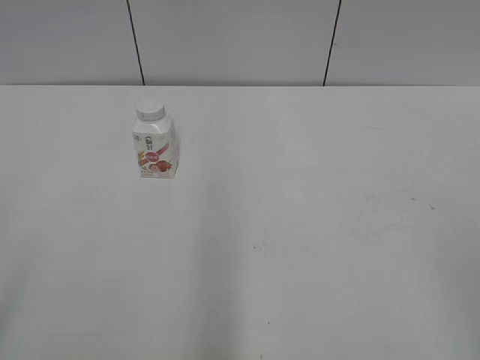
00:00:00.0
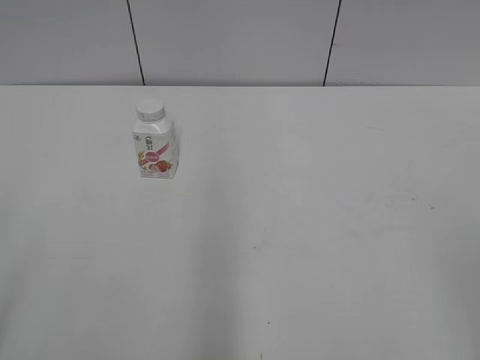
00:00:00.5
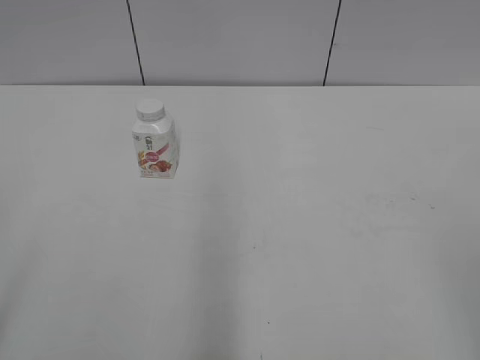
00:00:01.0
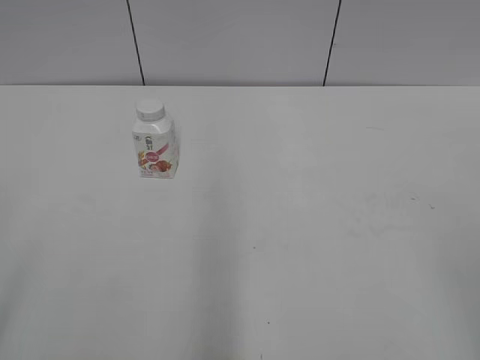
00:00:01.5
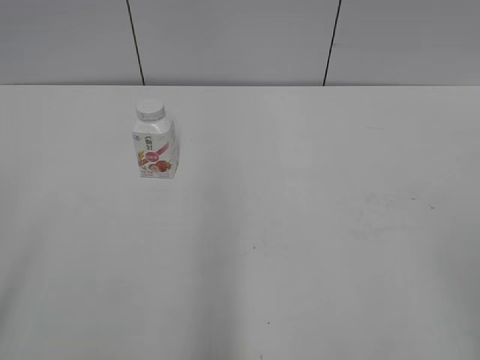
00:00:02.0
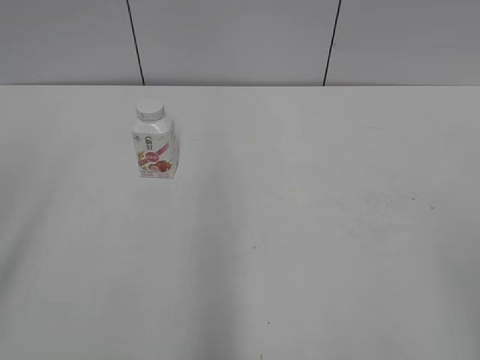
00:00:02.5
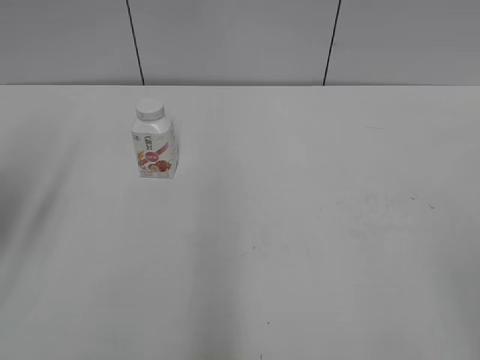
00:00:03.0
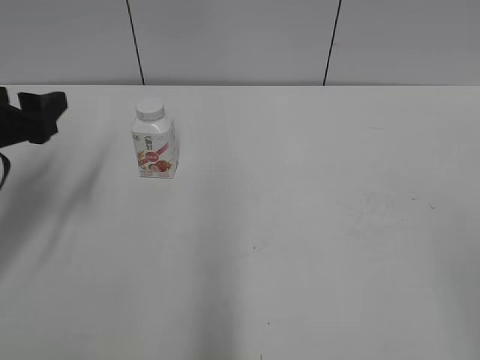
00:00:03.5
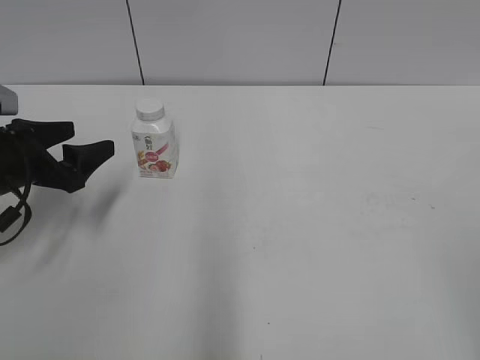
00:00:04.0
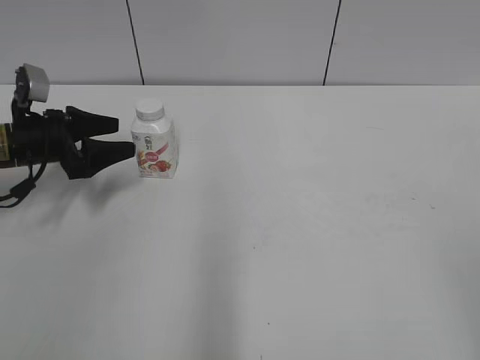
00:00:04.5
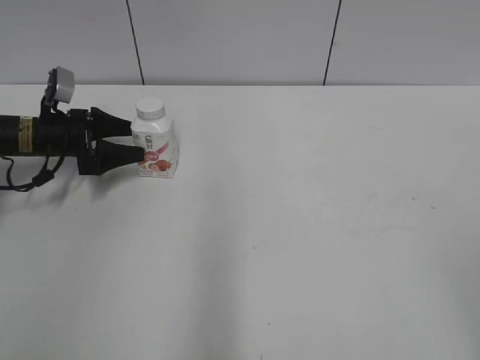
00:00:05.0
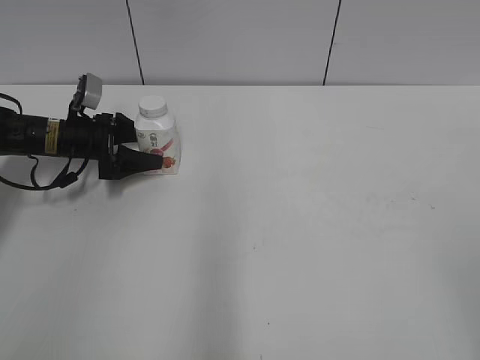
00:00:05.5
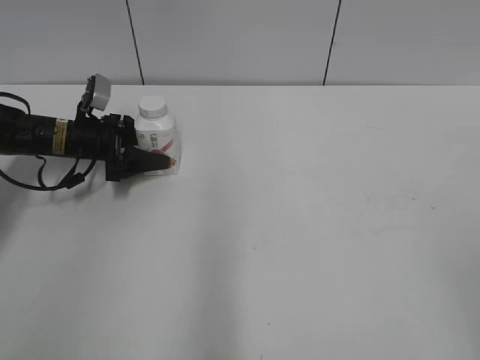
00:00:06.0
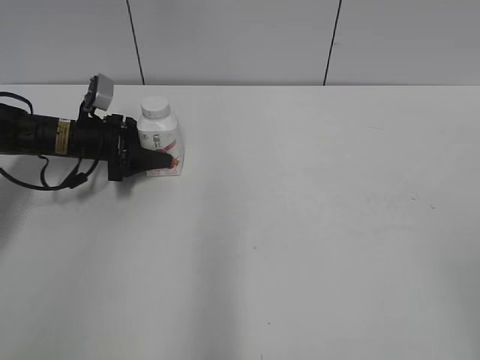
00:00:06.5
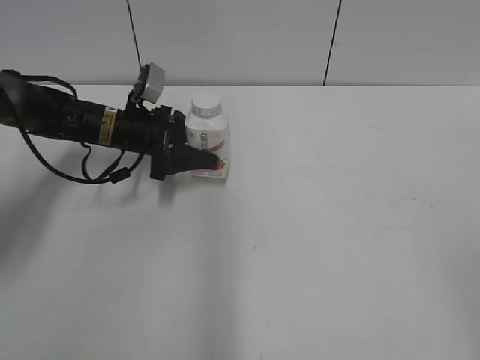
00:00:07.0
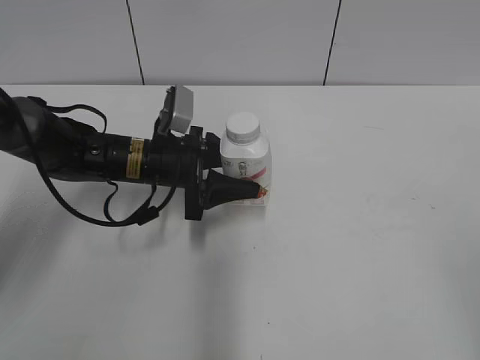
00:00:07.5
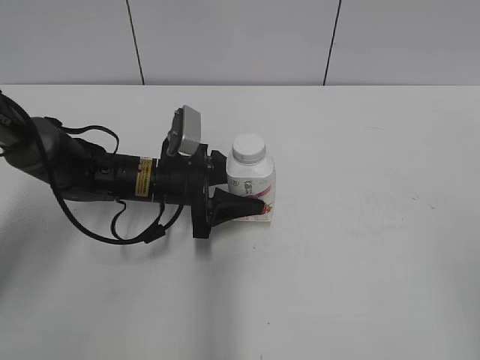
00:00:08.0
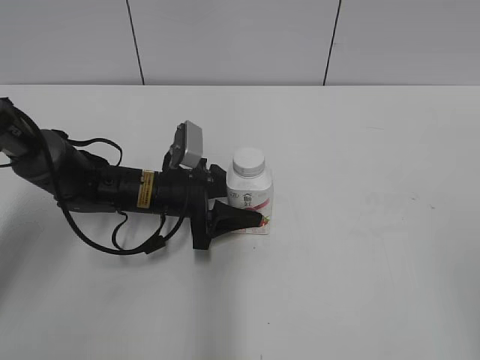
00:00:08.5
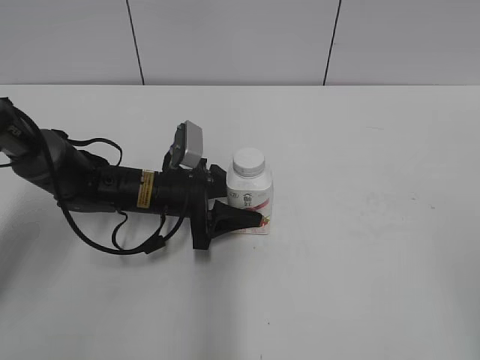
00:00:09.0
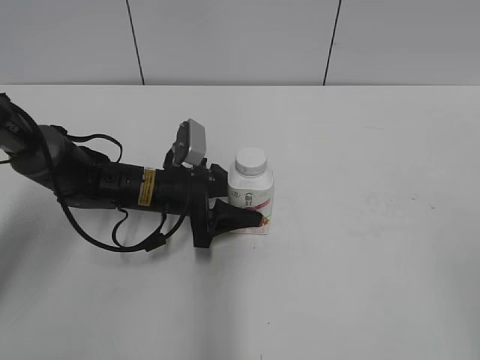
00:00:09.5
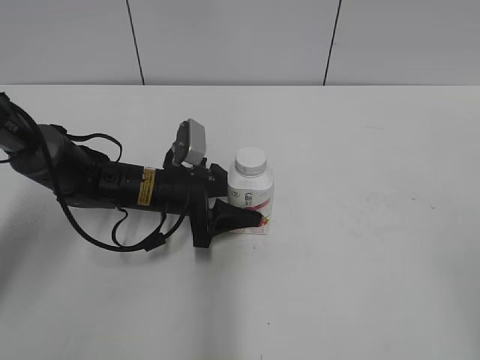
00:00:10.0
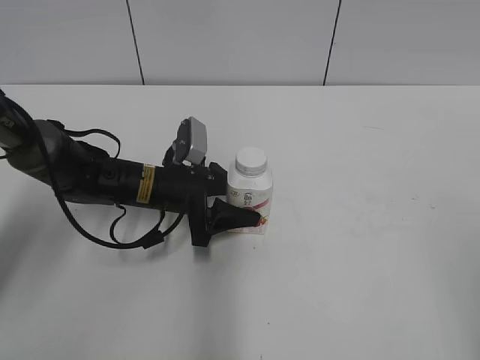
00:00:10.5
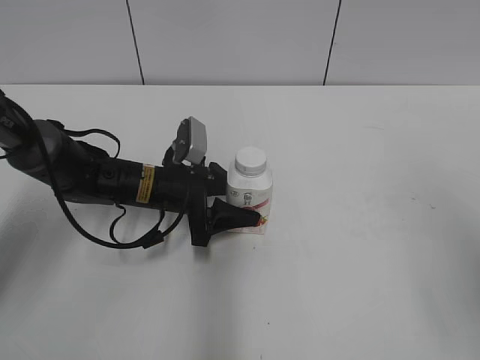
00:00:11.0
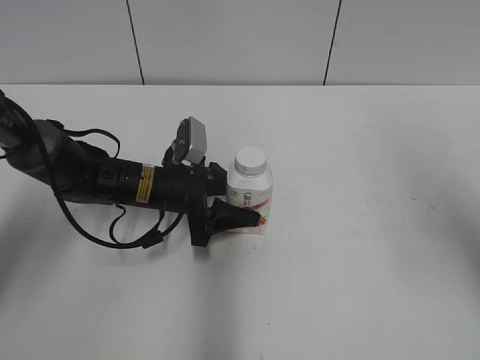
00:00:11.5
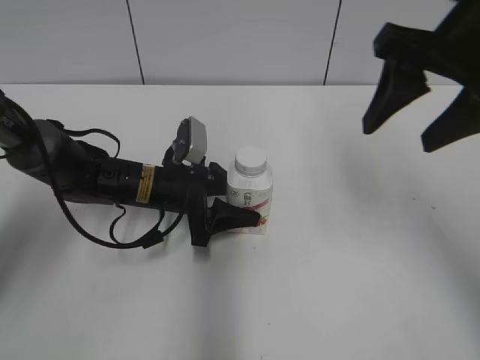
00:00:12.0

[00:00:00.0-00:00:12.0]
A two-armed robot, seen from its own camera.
Step, 00:00:00.0 to 00:00:06.0: Grab the Yili Changqing with the left hand.
Step, 00:00:06.5 to 00:00:08.5: Move the Yili Changqing from left to right.
00:00:02.0 to 00:00:04.0: The left gripper travels forward and downward by about 35 cm.
00:00:04.0 to 00:00:06.0: The left gripper travels forward and downward by some 15 cm, and closes its fingers.
00:00:06.0 to 00:00:08.0: The left gripper heads to the right and backward, covering some 15 cm.
00:00:08.0 to 00:00:10.0: The grippers stay close to where they were, moving slightly.
00:00:10.0 to 00:00:12.0: The right gripper shifts roughly 30 cm forward and to the left.

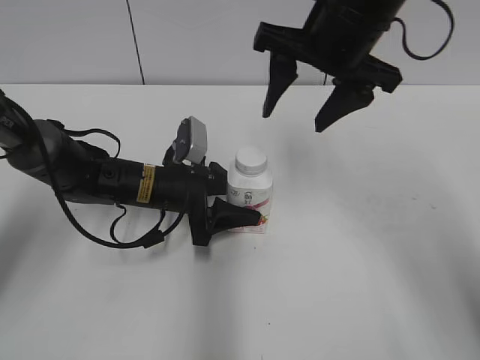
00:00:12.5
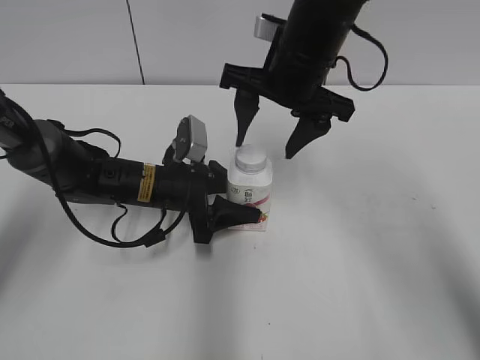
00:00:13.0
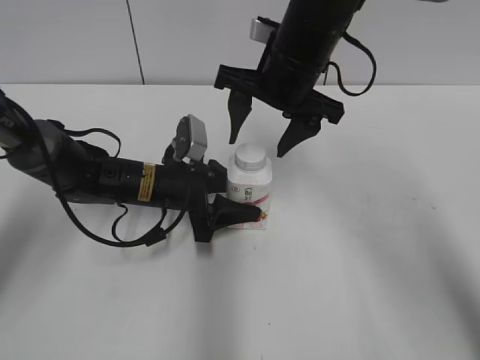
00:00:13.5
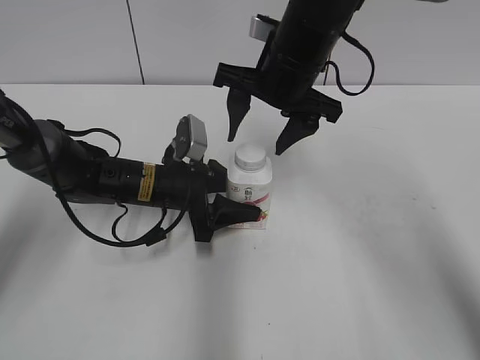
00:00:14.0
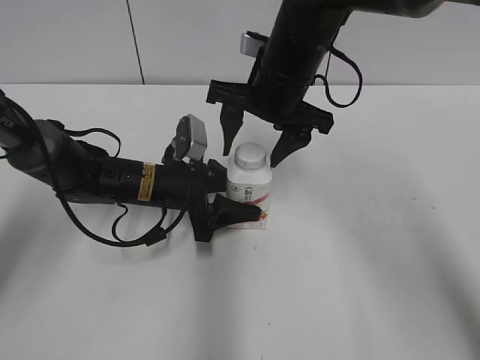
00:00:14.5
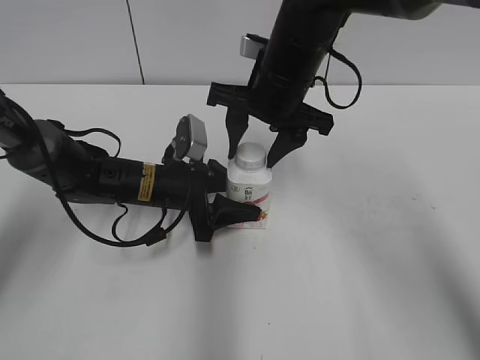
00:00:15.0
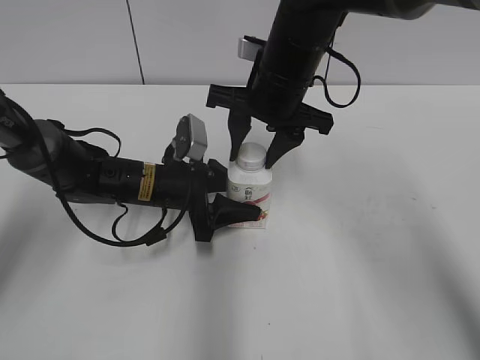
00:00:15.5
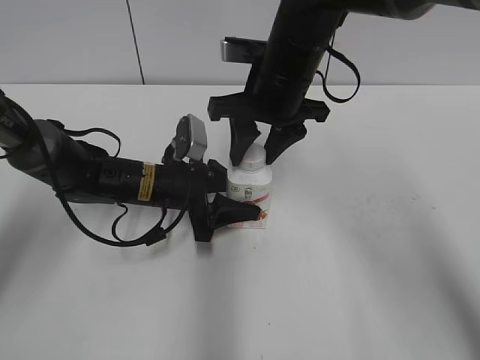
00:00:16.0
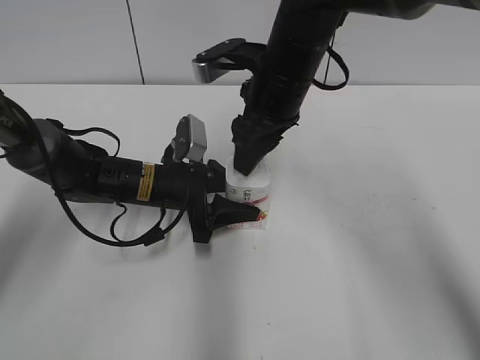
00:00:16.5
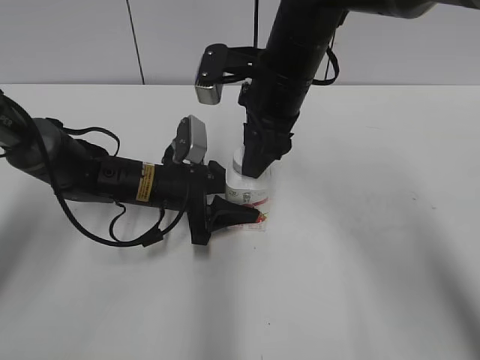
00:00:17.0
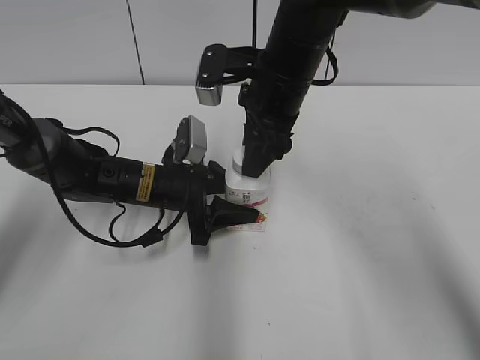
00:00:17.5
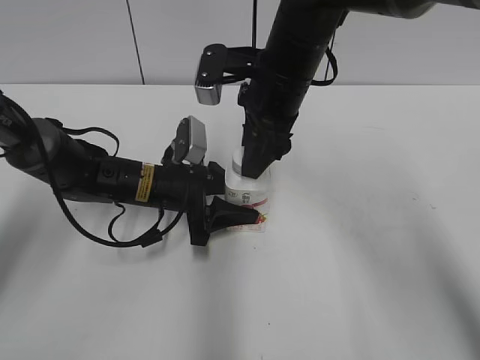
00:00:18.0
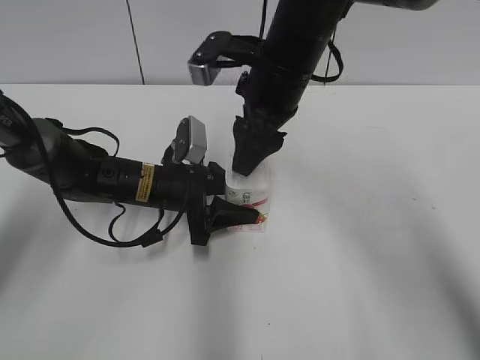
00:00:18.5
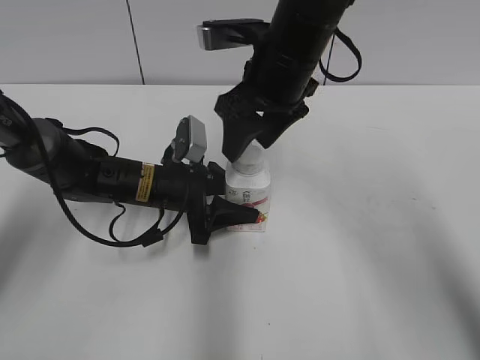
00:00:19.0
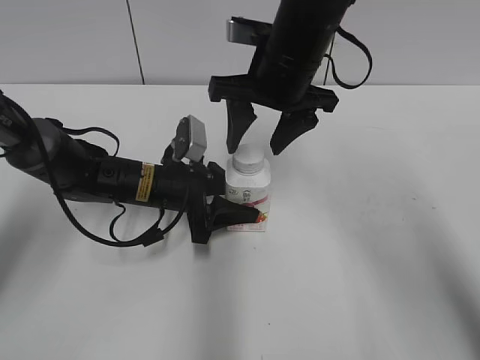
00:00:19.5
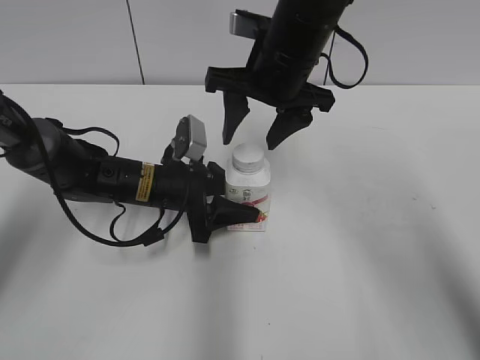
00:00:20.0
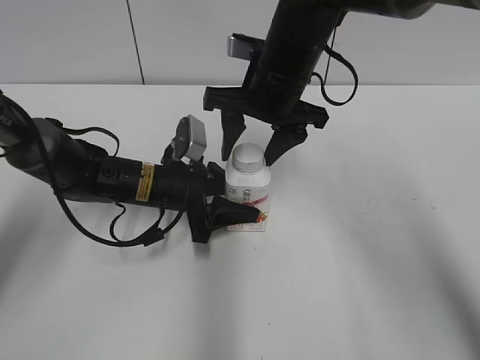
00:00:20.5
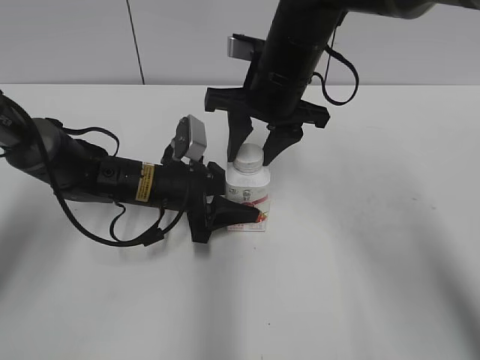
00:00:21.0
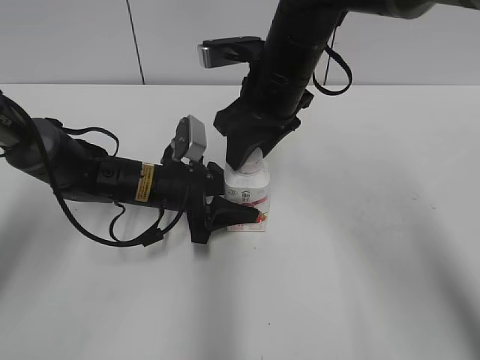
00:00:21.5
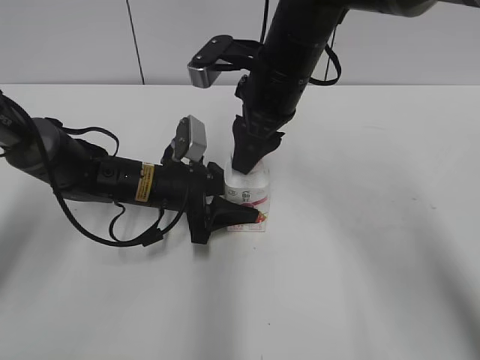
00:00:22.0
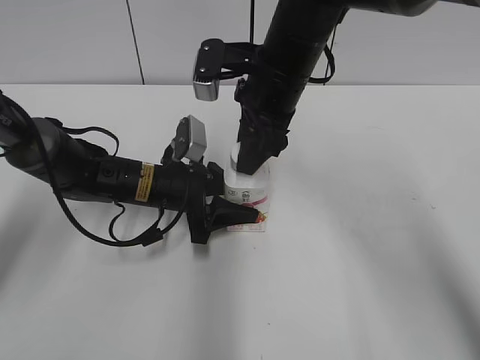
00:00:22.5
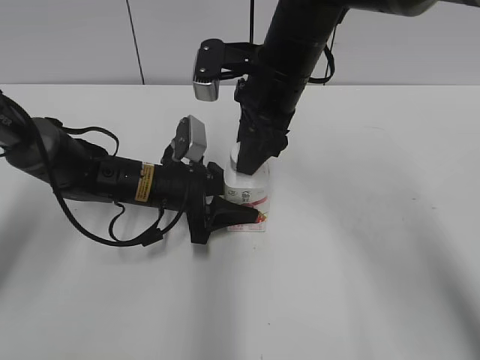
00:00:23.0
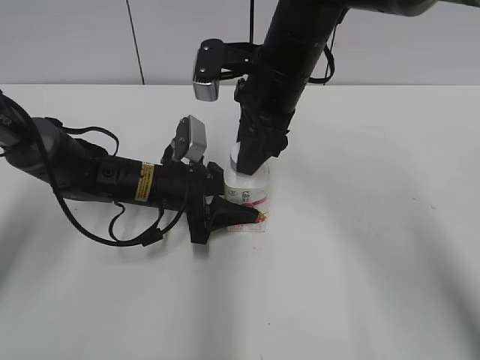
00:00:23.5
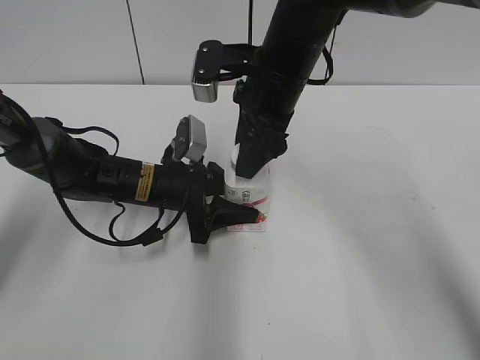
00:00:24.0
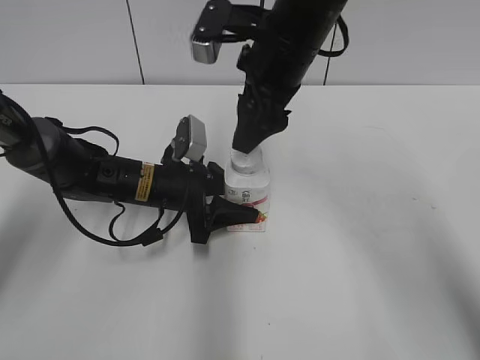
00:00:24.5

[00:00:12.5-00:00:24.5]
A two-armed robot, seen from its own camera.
00:00:12.5 to 00:00:14.5: The right gripper travels downward by approximately 5 cm.
00:00:14.5 to 00:00:16.5: The right gripper closes its fingers.
00:00:16.5 to 00:00:18.5: The right gripper opens its fingers.
00:00:20.5 to 00:00:22.5: The right gripper closes.
00:00:22.5 to 00:00:24.5: The right gripper opens.

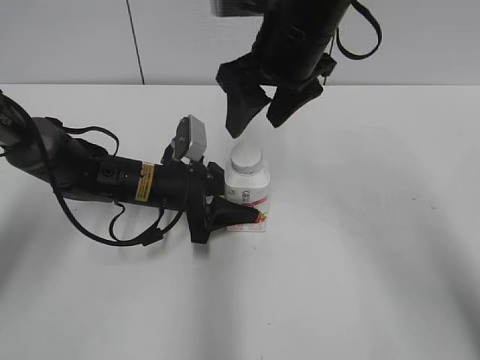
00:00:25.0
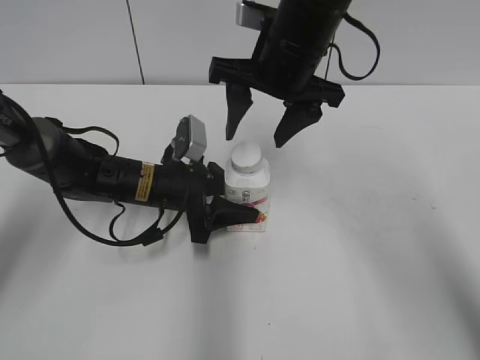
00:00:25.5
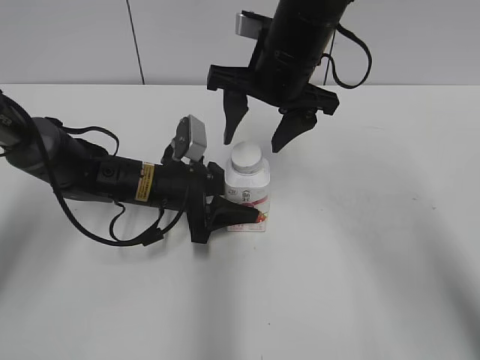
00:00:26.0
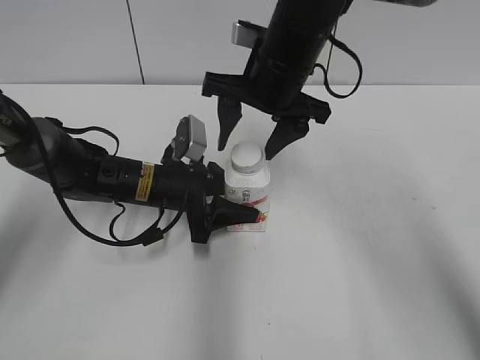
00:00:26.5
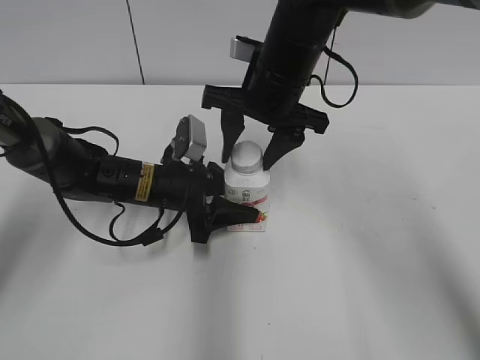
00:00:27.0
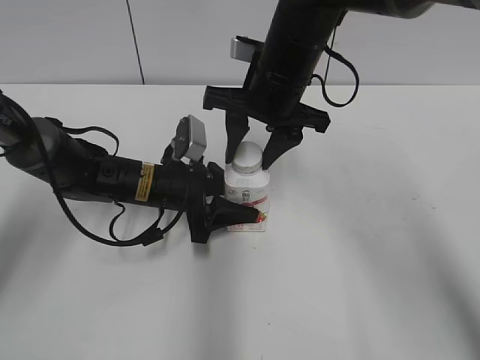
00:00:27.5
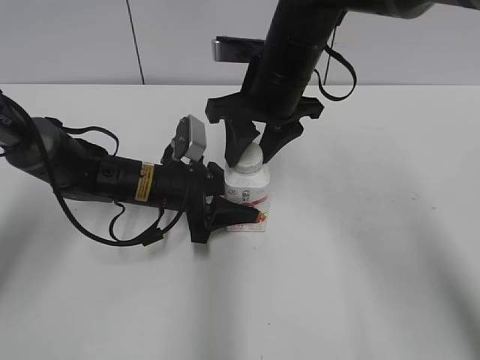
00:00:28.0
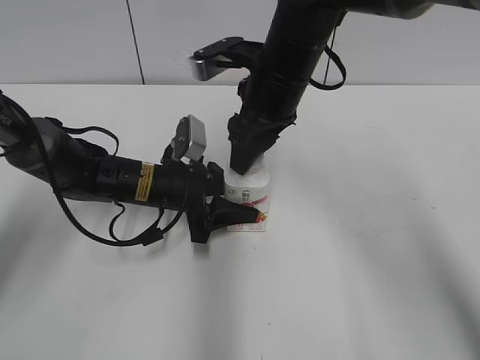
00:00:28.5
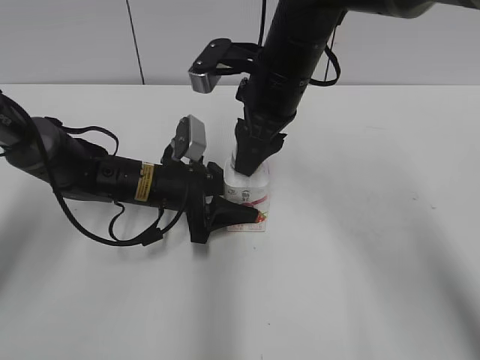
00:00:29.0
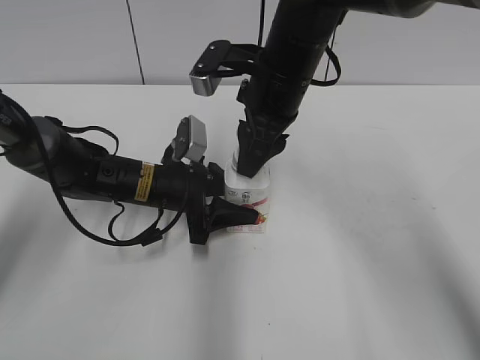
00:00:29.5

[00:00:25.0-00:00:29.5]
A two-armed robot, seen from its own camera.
00:00:25.0 to 00:00:27.0: The right gripper moves downward, roughly 5 cm, and closes.
00:00:27.0 to 00:00:29.5: The right gripper closes its fingers.
